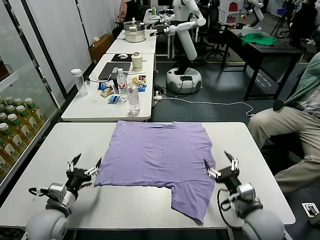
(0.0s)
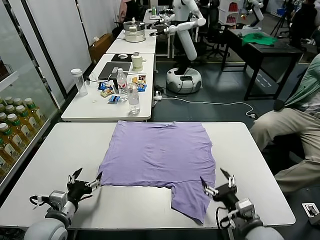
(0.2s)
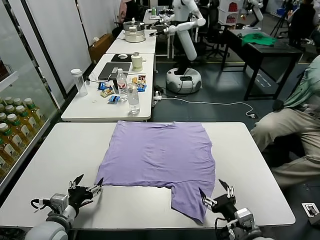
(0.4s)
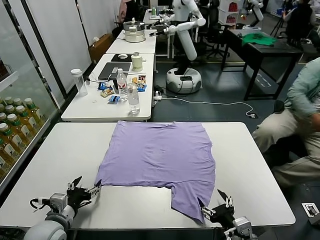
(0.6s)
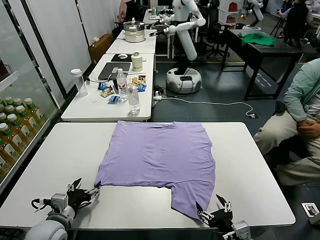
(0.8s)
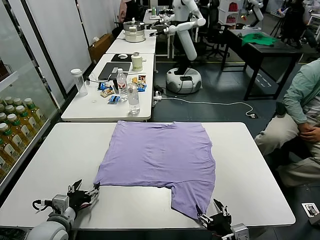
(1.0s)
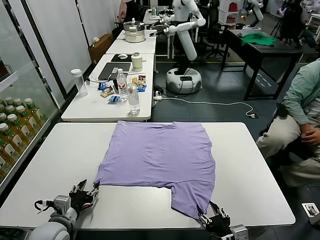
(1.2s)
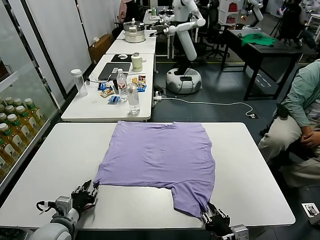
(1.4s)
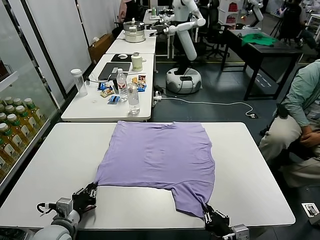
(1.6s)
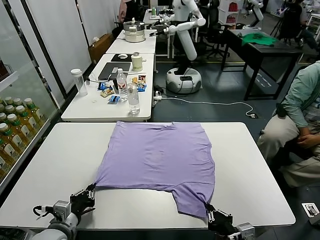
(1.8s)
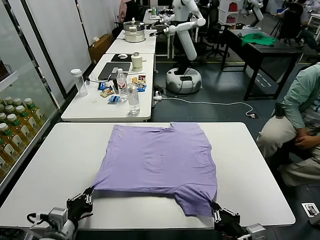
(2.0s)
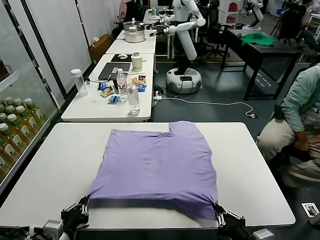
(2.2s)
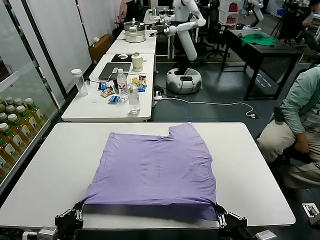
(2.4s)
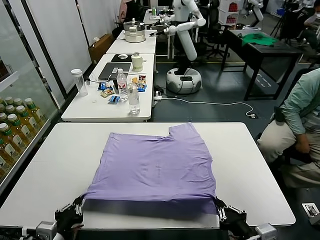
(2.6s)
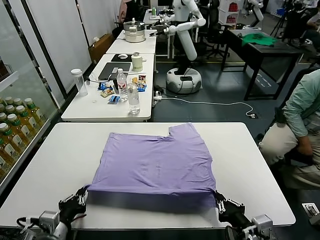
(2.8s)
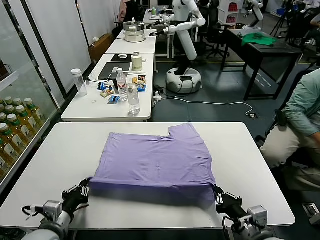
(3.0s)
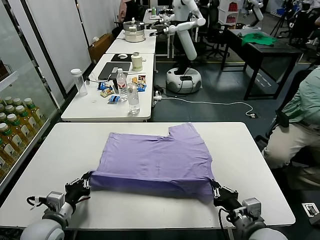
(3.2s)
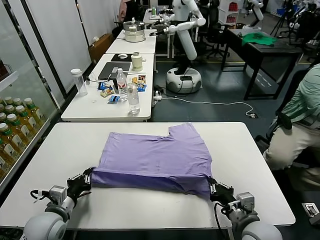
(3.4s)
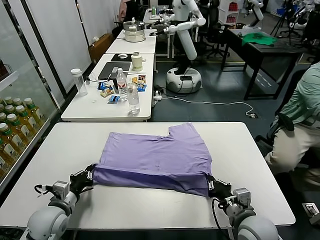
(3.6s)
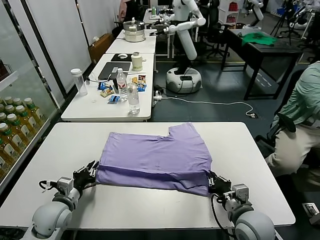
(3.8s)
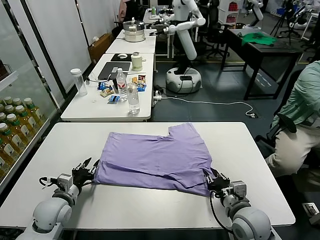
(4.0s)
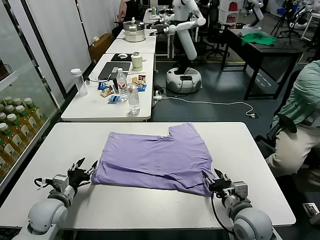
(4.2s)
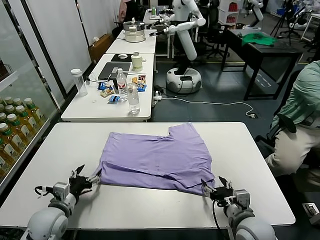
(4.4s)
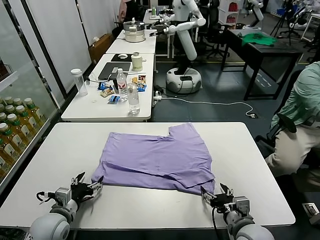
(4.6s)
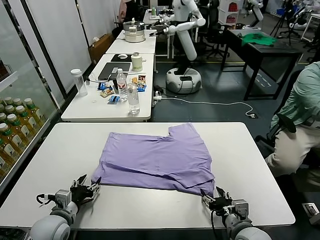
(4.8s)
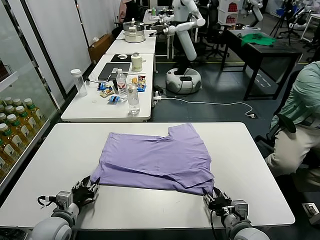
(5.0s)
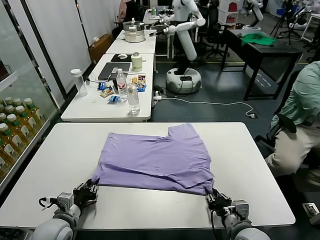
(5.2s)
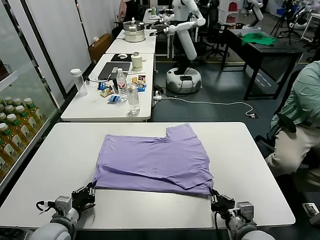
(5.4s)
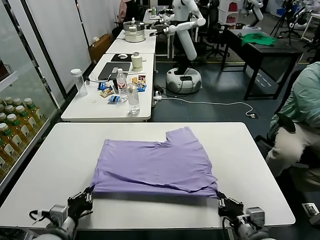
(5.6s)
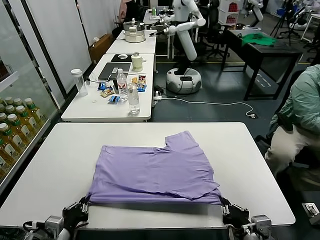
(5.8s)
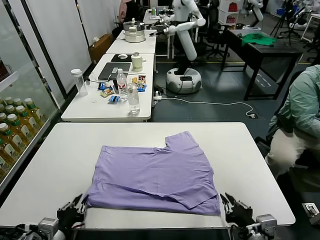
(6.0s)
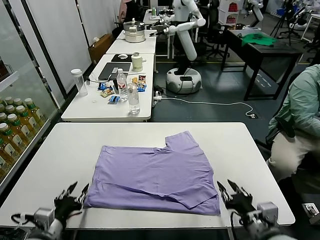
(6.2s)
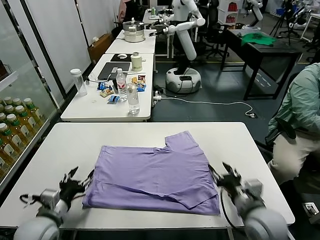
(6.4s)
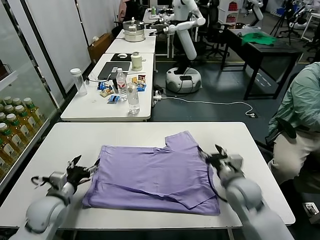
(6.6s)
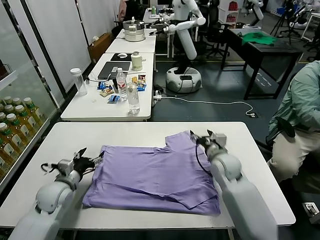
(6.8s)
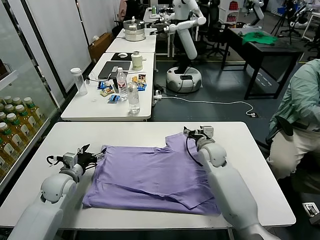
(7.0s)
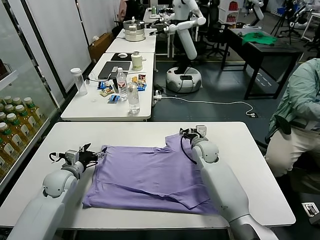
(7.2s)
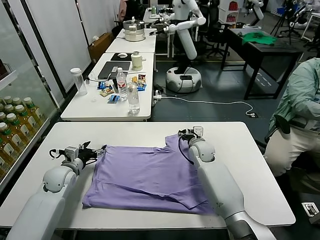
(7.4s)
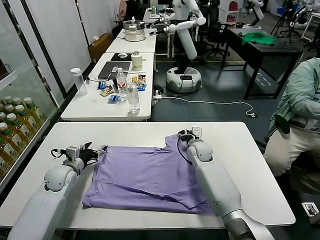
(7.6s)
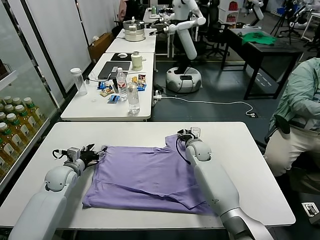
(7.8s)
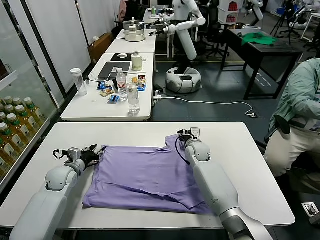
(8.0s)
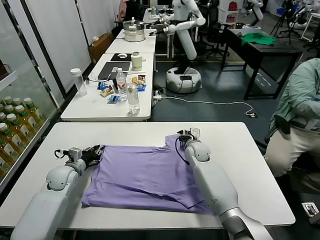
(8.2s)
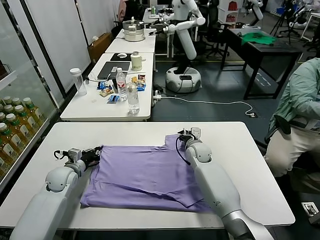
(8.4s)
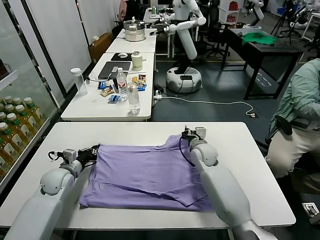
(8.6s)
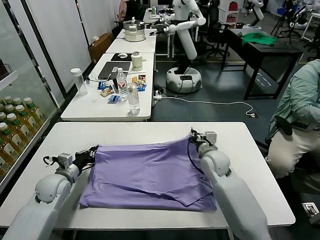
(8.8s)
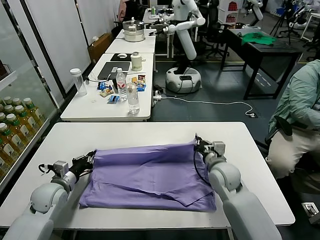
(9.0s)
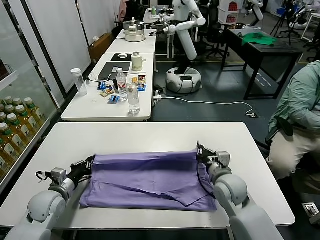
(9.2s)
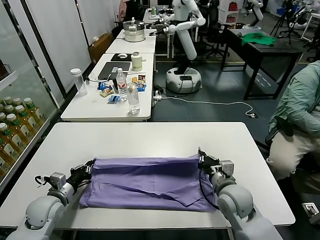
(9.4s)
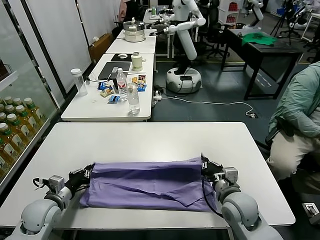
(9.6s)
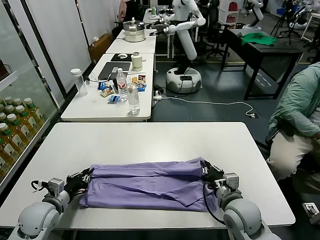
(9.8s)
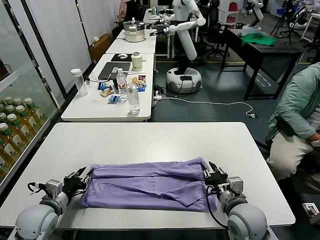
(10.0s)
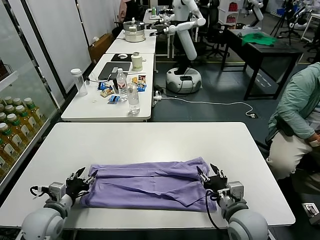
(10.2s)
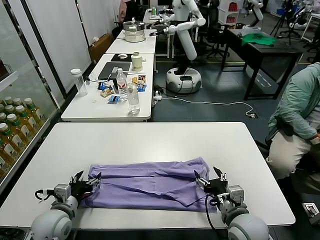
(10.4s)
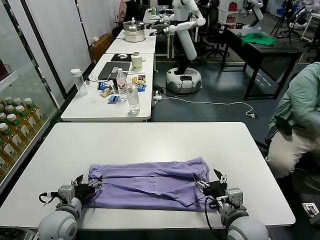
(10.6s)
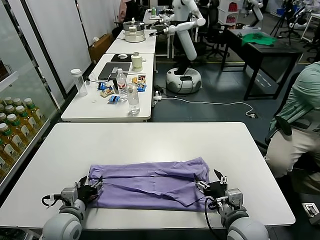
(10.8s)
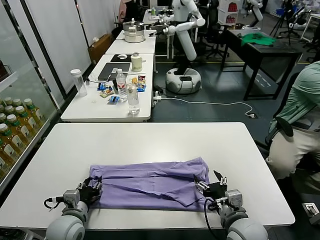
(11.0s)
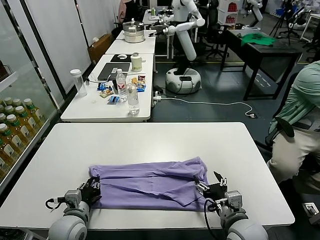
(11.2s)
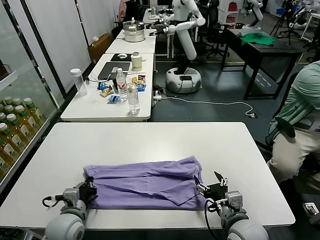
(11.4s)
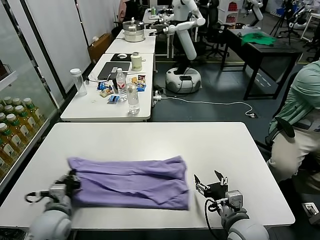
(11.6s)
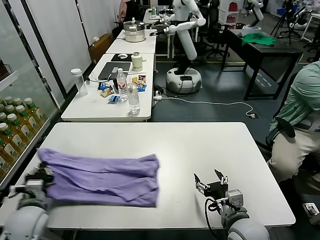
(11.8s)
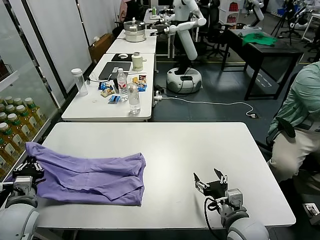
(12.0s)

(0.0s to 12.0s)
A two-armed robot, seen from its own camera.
Task of the whole recording: fold and organize the clothes.
Step, 0.0s - 1.6s: use both grippers simultaneously to clamp the lower edge of the clothing fabric.
Step, 1.8s - 4.2s: use both grippers to drag the lower edge of the fabric forward and fold it over the upper edge.
Step, 4.4s - 6.2s: Drag the clothes downward with both gripper.
Step, 6.4s - 8.4s: use both grippers simultaneously to clamp the upper edge of the clothing fabric.
Step, 8.6s - 10.0s: use both grippers to drag the upper edge of the fabric backward and fold it over the lower edge.
Step, 10.2s - 11.4s: use the left gripper to clamp the left edge of the fabric.
1.6s - 3.0s: The right gripper shifts by some 5 cm. Meanwhile the left gripper travels backward and back again, some 10 cm each way.
3.0s - 4.4s: The left gripper moves forward, approximately 5 cm, and opens its fingers. The right gripper opens up.
4.4s - 6.0s: The left gripper shifts about 10 cm backward, and closes up. Meanwhile the right gripper shifts about 10 cm backward and upward, and closes up.
6.0s - 7.6s: Both grippers move forward, about 35 cm. The left gripper opens its fingers. The right gripper opens.
7.6s - 9.0s: The left gripper goes some 5 cm backward, and closes up. The right gripper travels backward by some 15 cm, and closes its fingers.
9.0s - 10.4s: The left gripper shifts roughly 10 cm backward and to the right, and opens. The right gripper moves backward, about 15 cm, and opens.
10.4s - 12.0s: The left gripper is displaced to the left and upward by some 10 cm, and closes up.

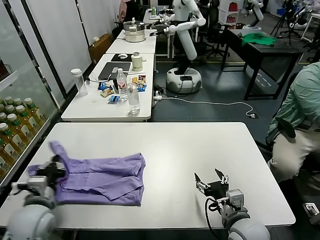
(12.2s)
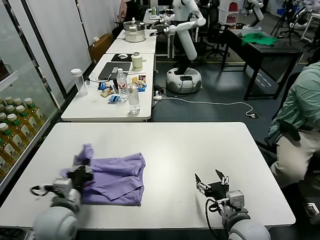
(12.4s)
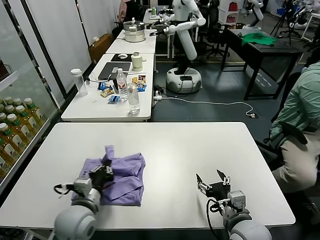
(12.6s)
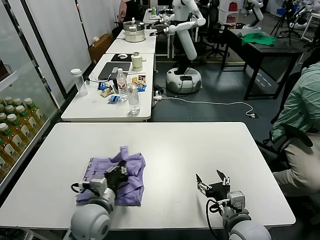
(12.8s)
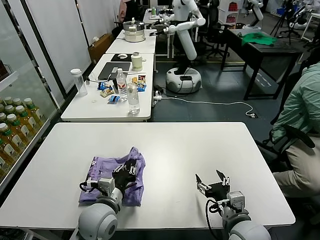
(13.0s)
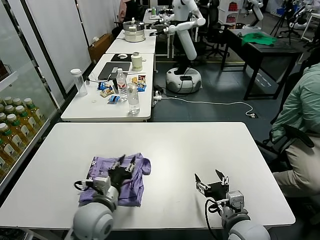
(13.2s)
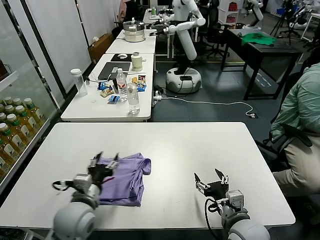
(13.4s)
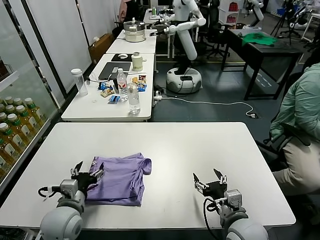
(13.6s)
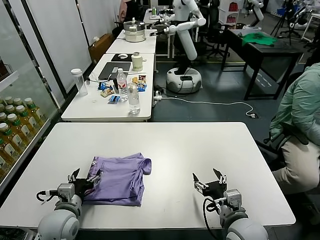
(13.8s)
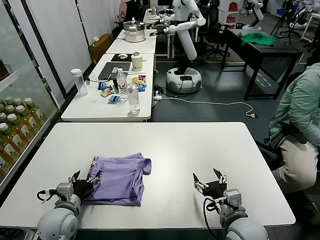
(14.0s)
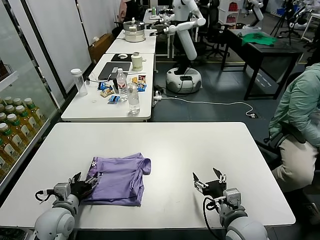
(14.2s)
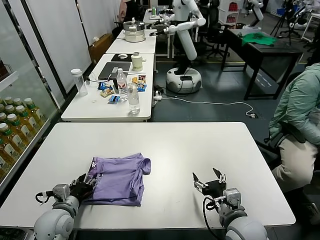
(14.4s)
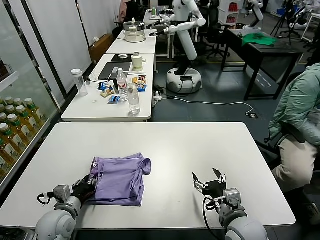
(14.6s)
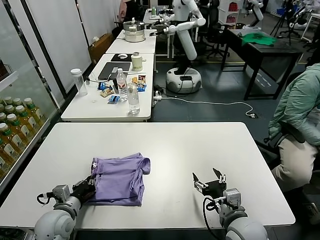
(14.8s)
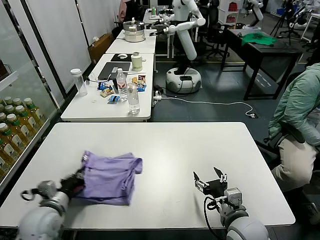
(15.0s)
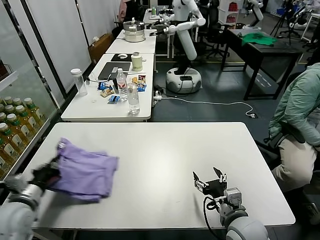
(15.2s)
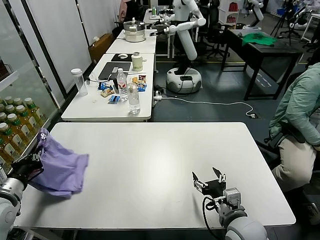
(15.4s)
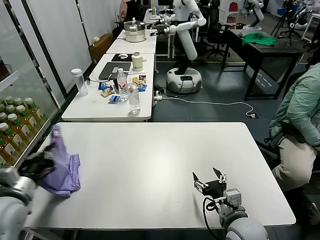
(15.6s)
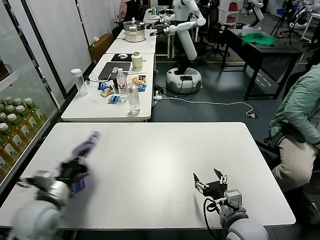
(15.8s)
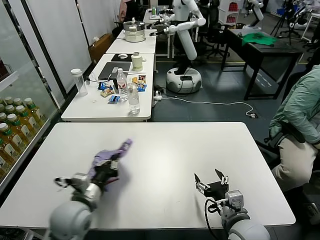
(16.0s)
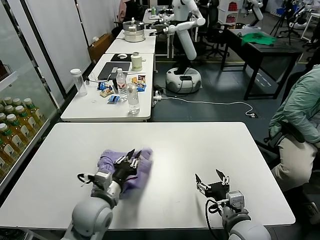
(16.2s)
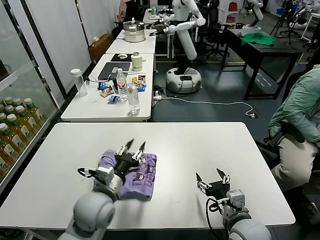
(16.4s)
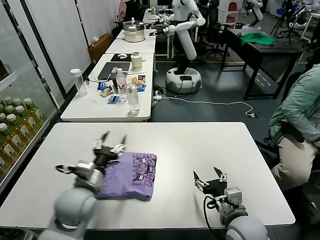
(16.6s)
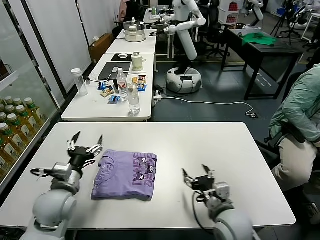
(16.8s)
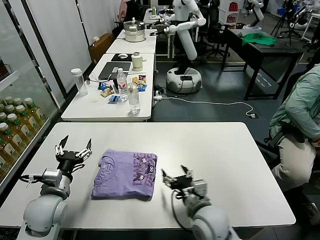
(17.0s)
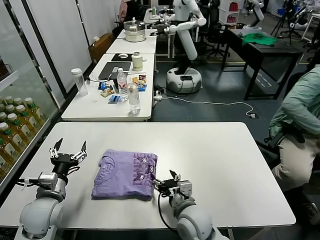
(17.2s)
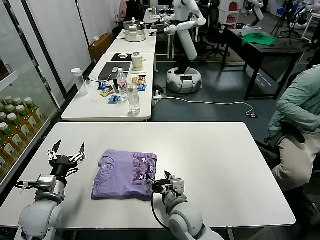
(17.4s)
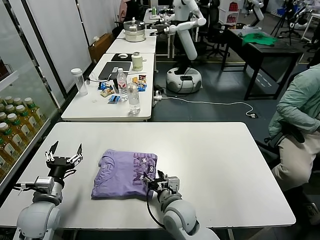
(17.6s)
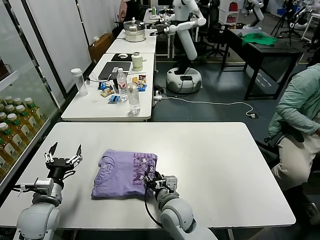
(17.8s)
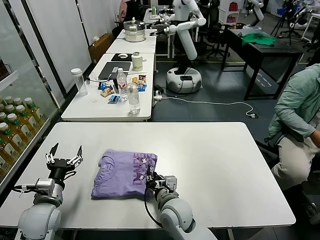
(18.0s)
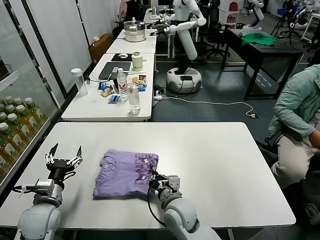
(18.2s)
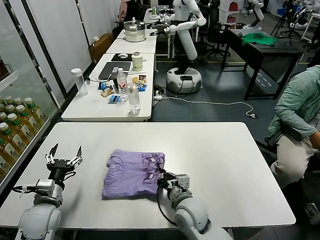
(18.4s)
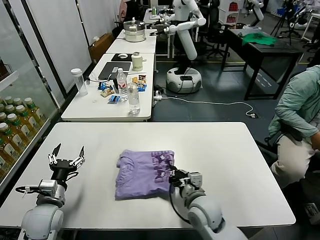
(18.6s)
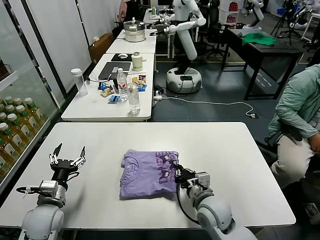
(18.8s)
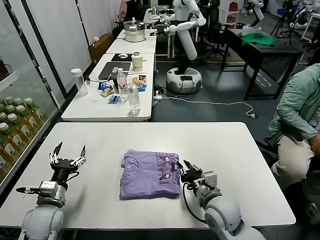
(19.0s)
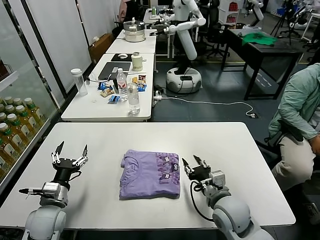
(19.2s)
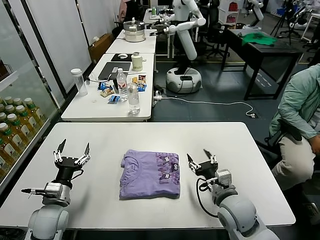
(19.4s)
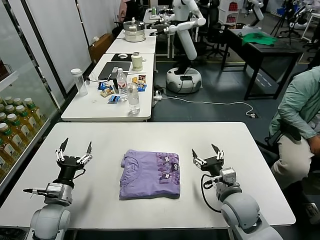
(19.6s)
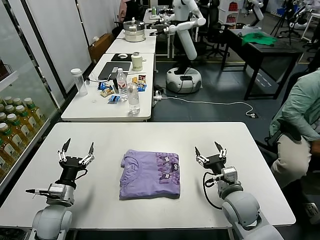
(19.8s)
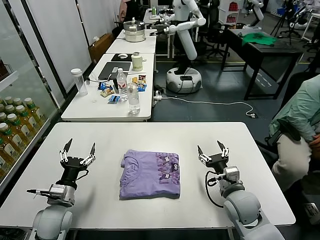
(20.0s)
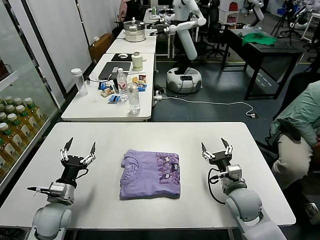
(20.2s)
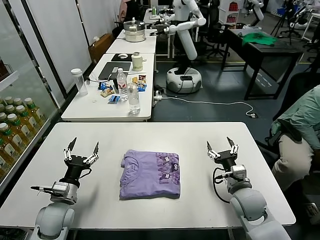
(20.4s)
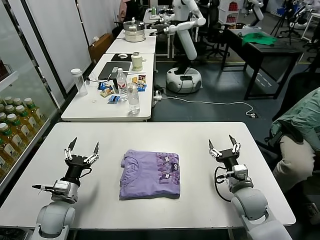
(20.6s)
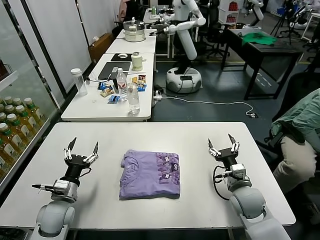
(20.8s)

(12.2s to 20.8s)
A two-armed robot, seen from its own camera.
Task of the whole recording: fold and organize the clothes.
Step, 12.2s - 13.2s: use the left gripper to drag the left edge of the fabric to the left and folds it over the right edge.
Step, 13.4s - 16.2s: Flip the folded clothes over with left gripper.
Step, 16.4s - 19.6s: Drag the clothes to the center of the table.
12.2s - 13.6s: The left gripper shifts about 10 cm to the right, and opens its fingers.
13.6s - 15.0s: The left gripper moves to the left, roughly 5 cm, and closes up.
15.0s - 16.6s: The left gripper goes some 15 cm to the right and upward, and opens.
16.6s - 18.0s: The right gripper goes roughly 20 cm to the left and forward, and closes, while the left gripper is displaced to the left and downward by some 15 cm.
18.0s - 19.4s: The right gripper heads to the right, covering some 15 cm, and opens.
19.4s - 20.8s: The right gripper travels to the right by approximately 5 cm.
